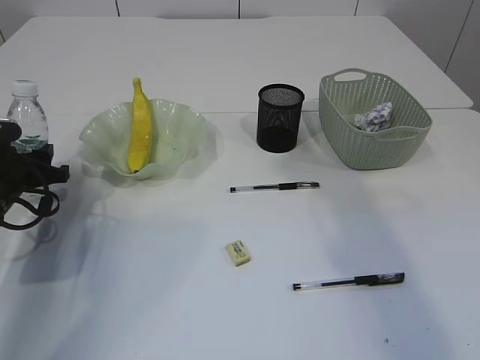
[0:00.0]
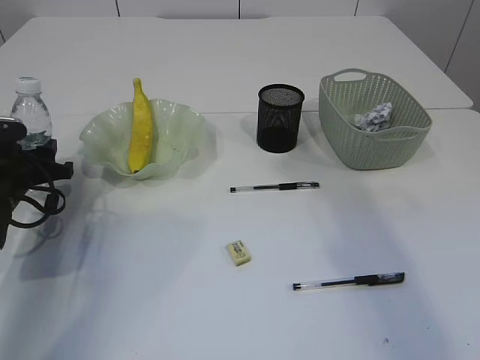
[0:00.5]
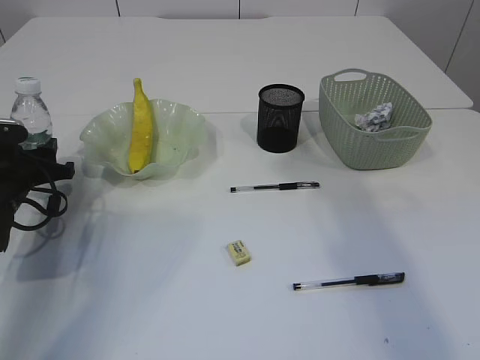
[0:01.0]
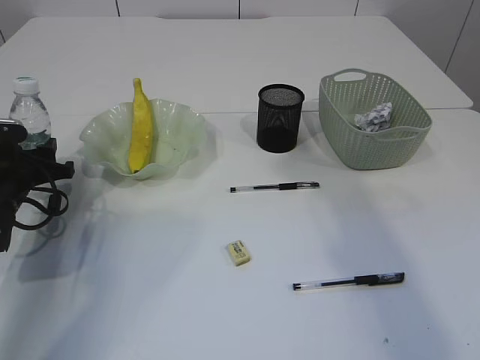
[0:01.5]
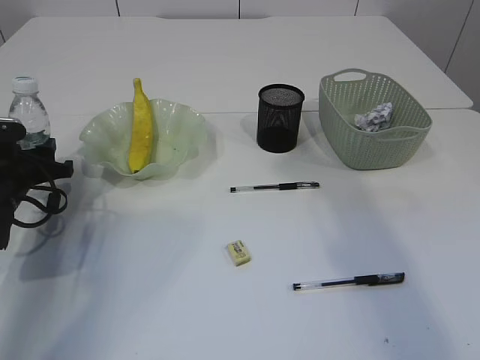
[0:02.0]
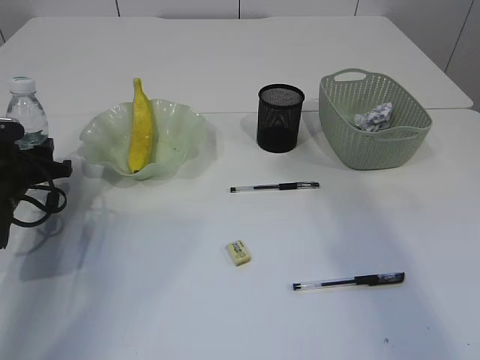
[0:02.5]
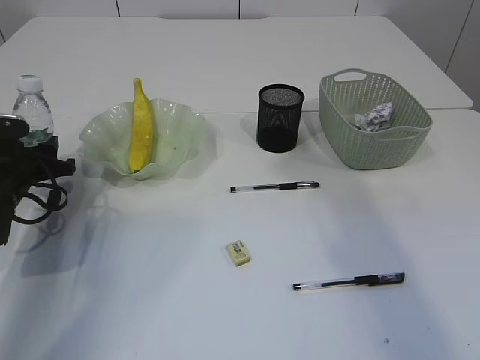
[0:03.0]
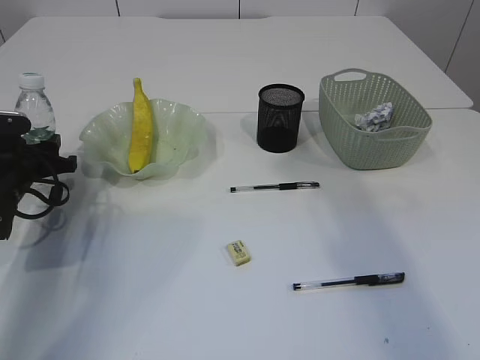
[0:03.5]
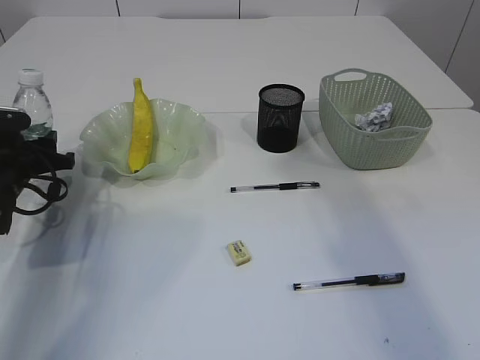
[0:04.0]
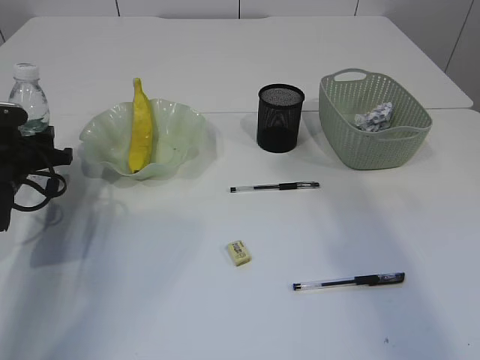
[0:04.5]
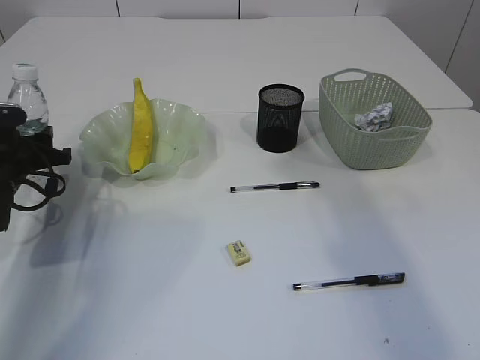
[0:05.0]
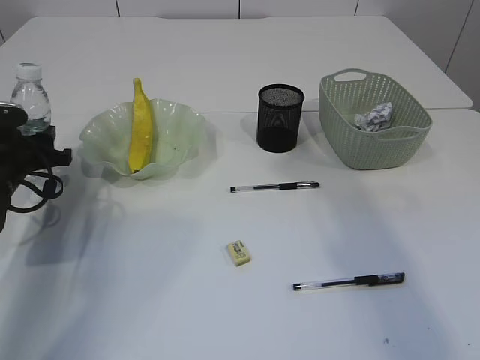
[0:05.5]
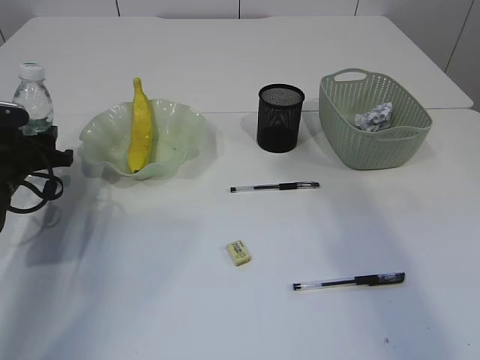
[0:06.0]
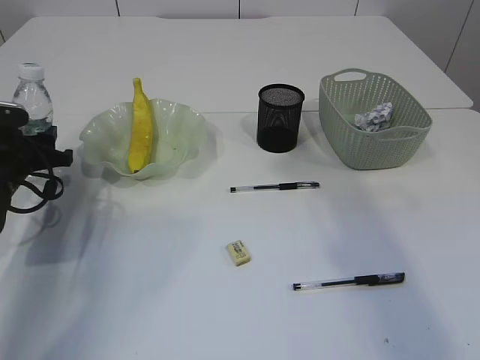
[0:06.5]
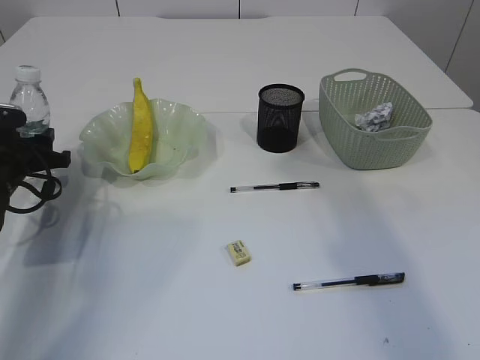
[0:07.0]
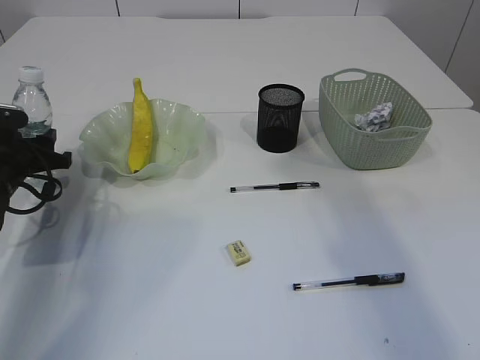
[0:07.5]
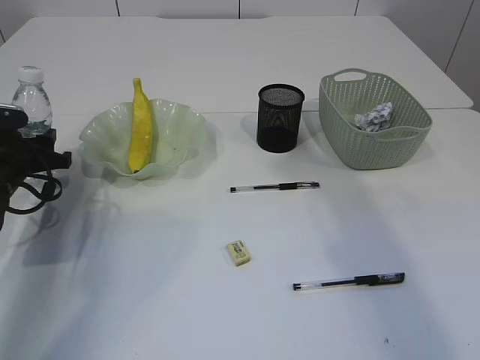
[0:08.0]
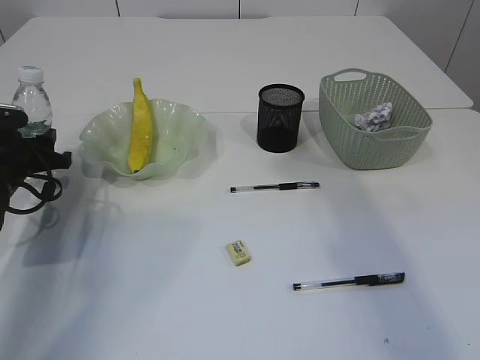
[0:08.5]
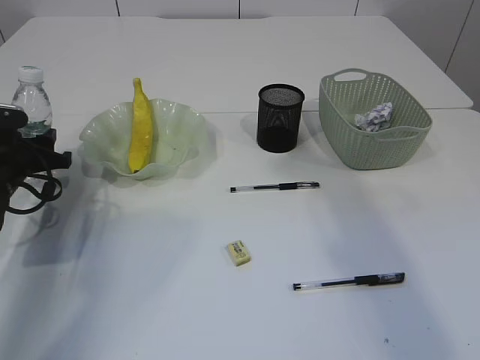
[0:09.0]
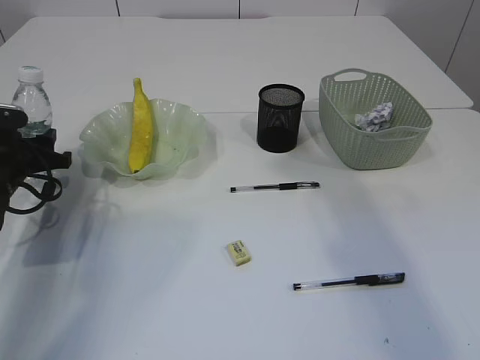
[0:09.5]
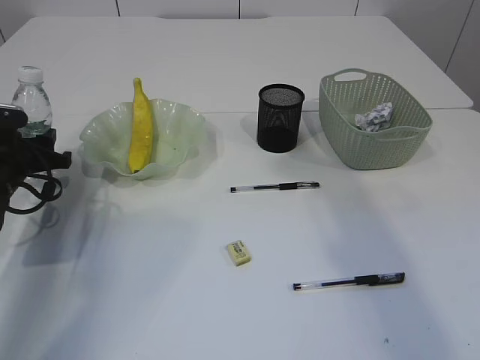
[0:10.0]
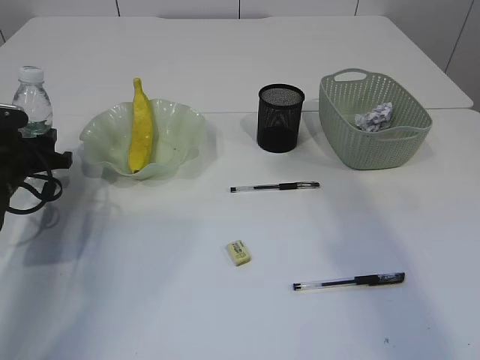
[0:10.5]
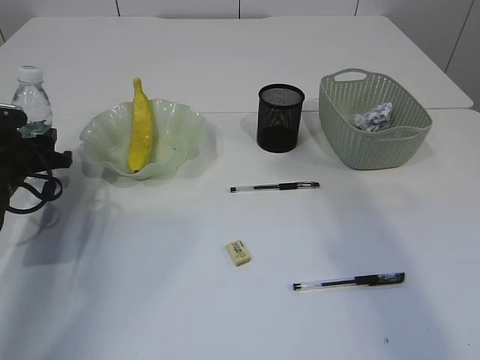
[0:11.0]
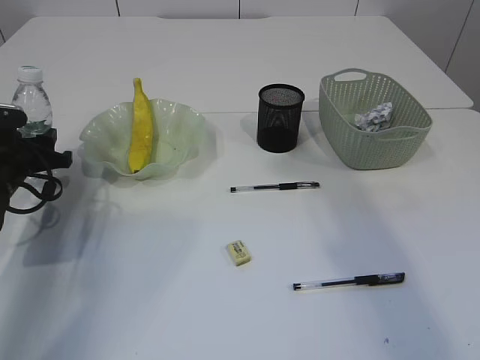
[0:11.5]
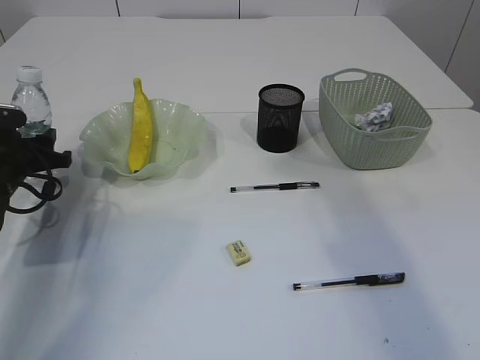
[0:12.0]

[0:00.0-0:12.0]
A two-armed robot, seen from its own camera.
0:00.0 to 0:04.0: There are only small adjustments of the grippers.
0:04.0 to 0:12.0: Neither gripper changes place.

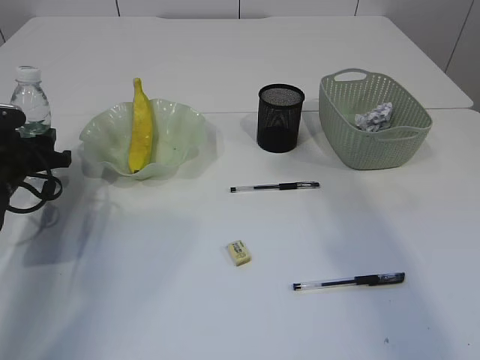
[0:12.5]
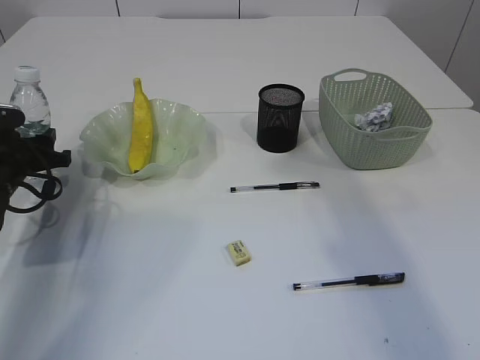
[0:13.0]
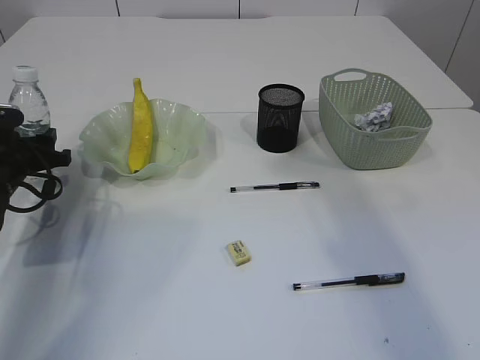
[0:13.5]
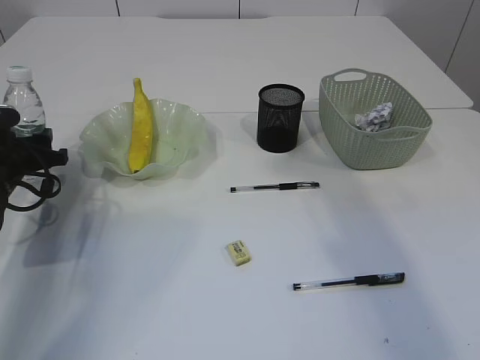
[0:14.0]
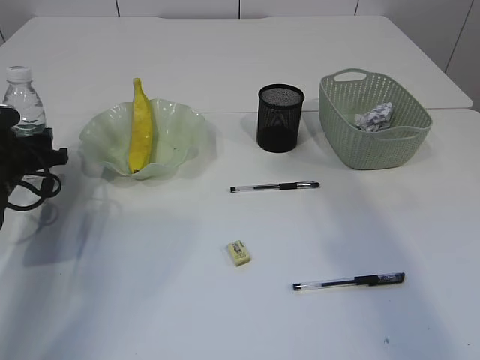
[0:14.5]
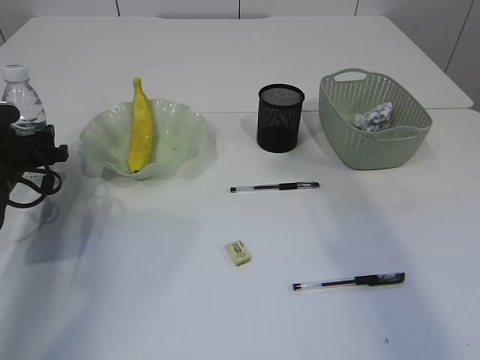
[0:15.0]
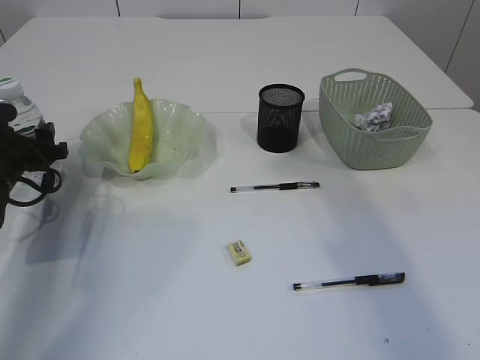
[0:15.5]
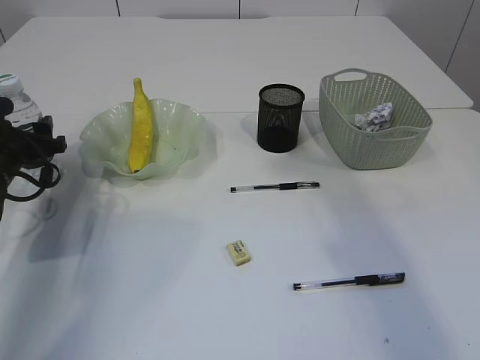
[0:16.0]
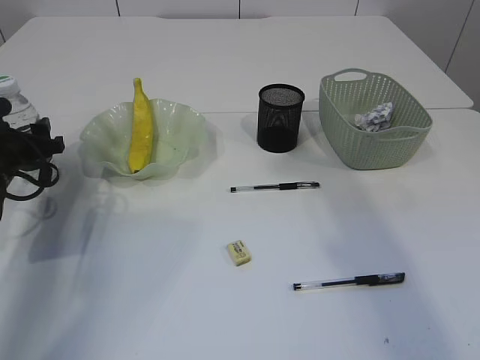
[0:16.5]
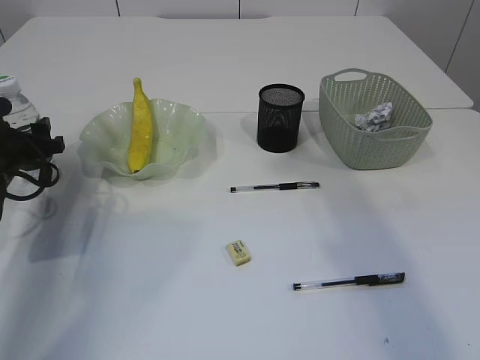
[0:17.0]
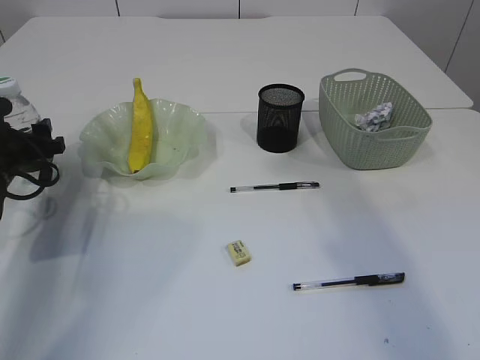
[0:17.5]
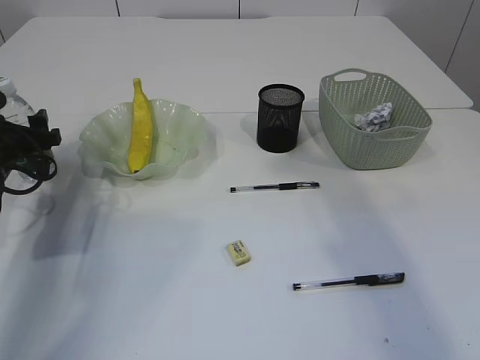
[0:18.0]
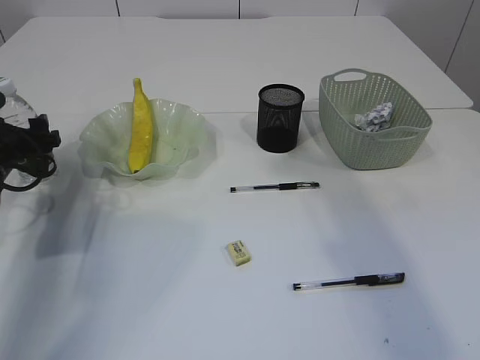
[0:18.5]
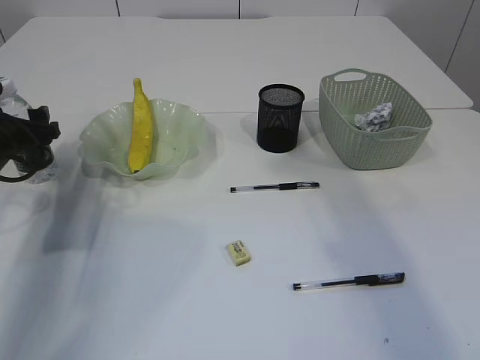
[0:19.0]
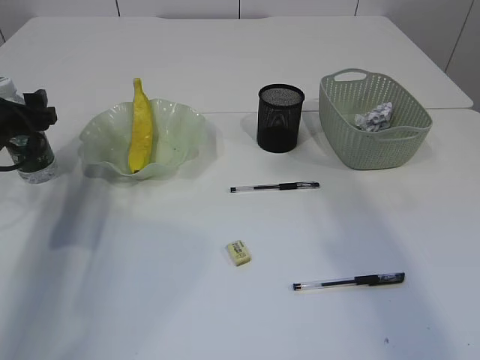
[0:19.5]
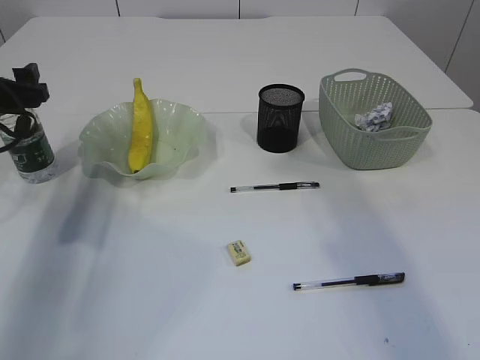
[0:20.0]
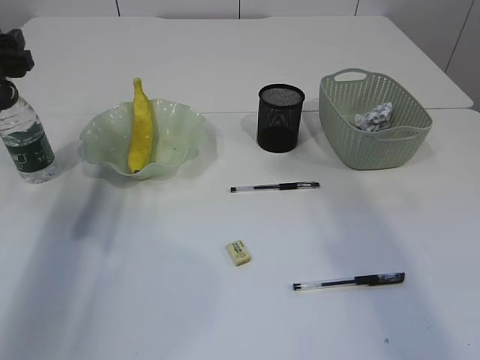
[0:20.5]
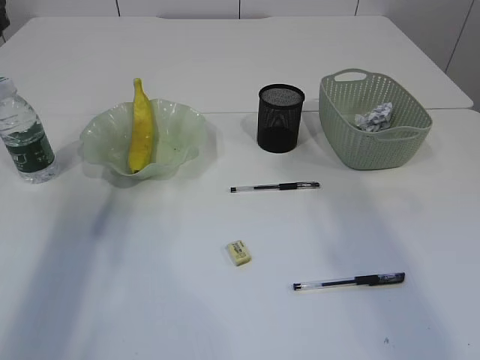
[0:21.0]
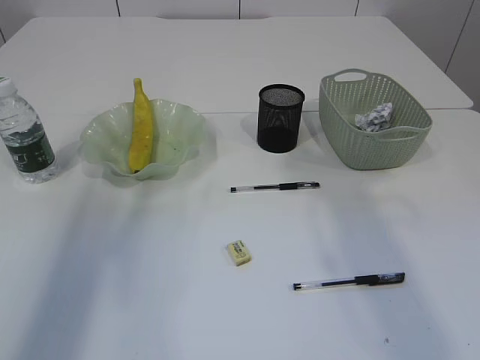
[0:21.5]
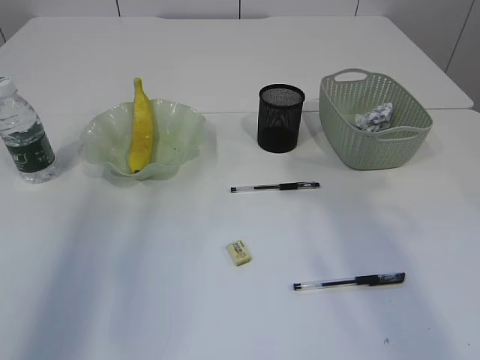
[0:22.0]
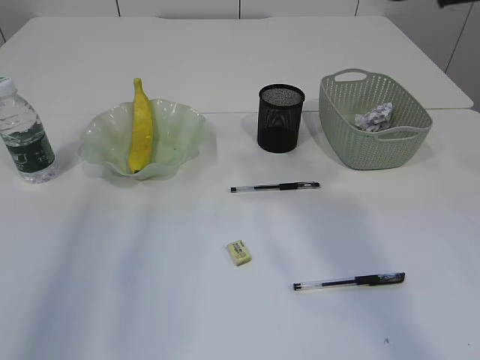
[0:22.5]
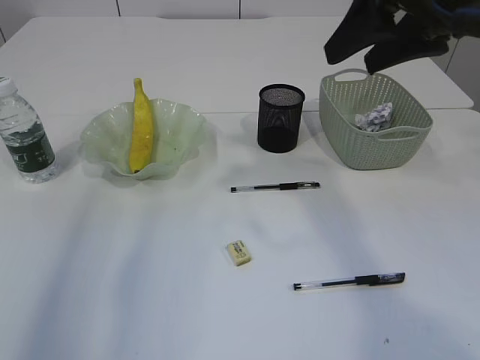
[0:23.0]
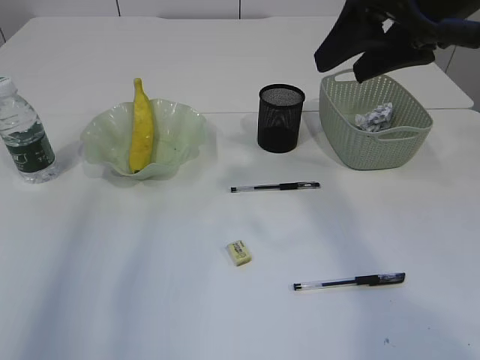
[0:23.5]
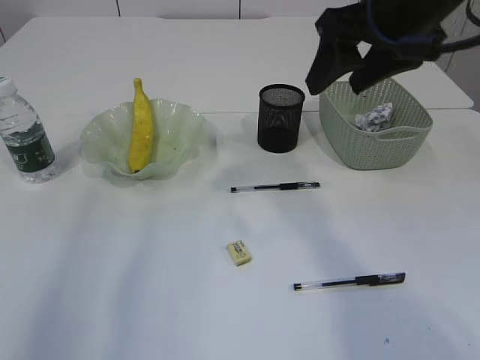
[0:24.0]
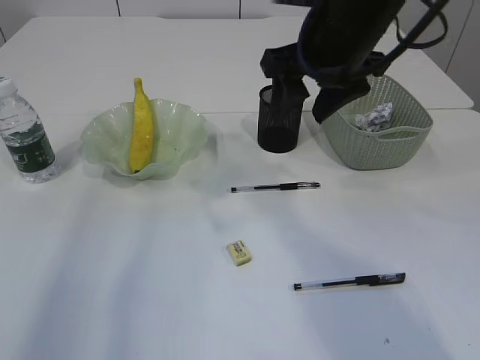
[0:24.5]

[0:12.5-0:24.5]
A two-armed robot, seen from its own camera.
Step, 0:12.5 to 0:20.0: Place the bottle.
0:12.5 to 0:14.5: Both grippers stay put.
0:14.5 to 0:16.5: Both grippers stay put.
0:16.5 to 0:18.5: The two grippers keep their place.
0:18.5 to 0:20.5: The left gripper heads upward, covering roughly 10 cm.
0:20.5 to 0:22.5: The right gripper moves to the left, about 5 cm. The left gripper shifts some 20 cm upward and backward.
0:22.5 to 0:24.5: The right gripper shifts some 15 cm forward, to the left and downward.

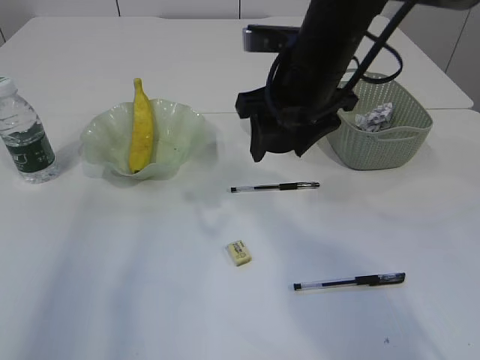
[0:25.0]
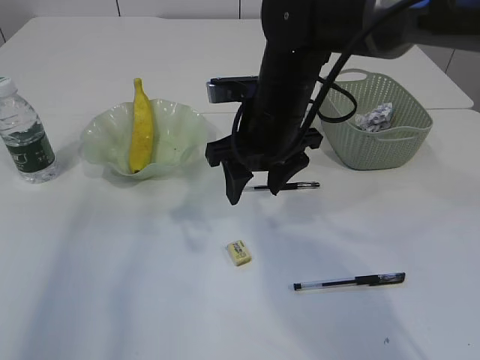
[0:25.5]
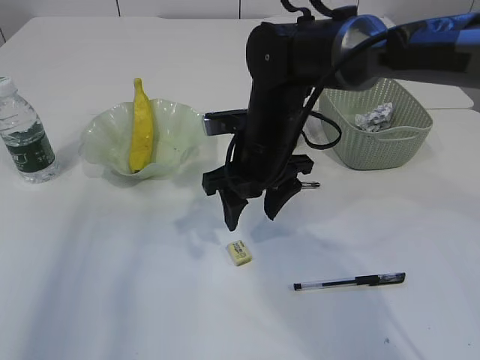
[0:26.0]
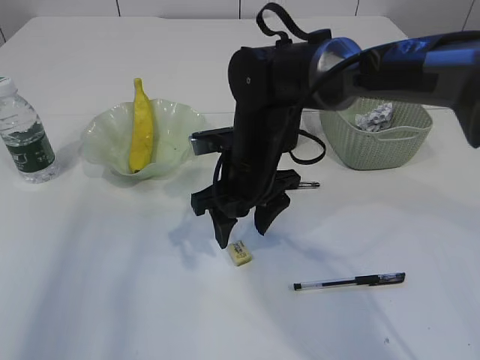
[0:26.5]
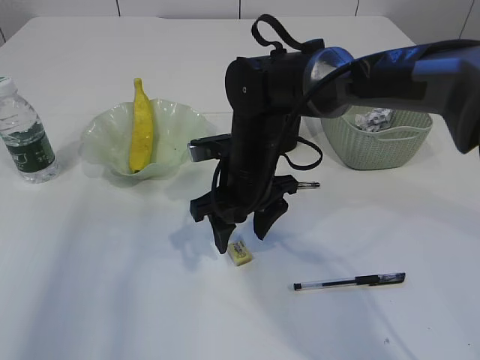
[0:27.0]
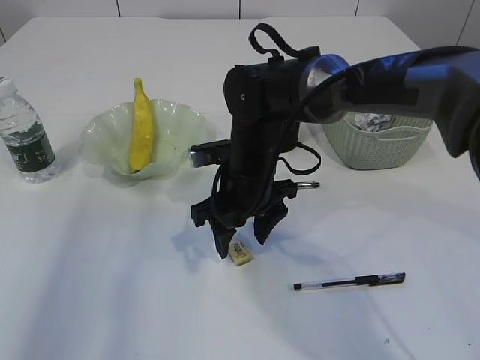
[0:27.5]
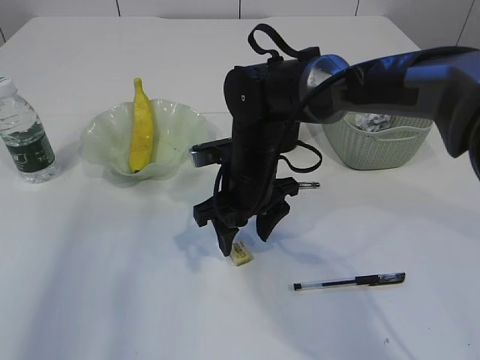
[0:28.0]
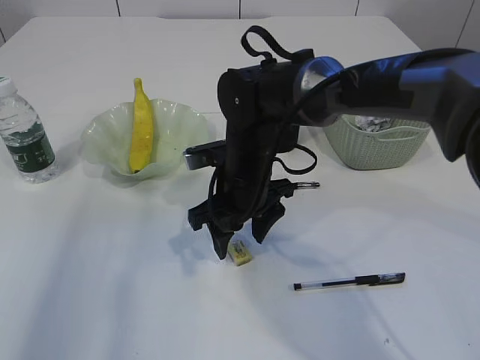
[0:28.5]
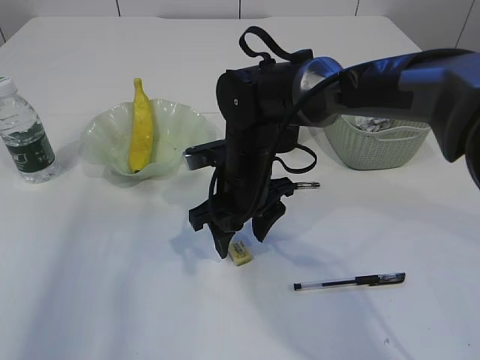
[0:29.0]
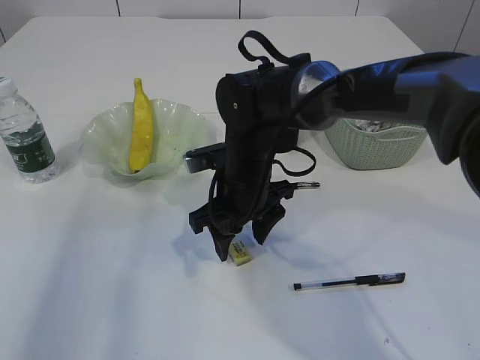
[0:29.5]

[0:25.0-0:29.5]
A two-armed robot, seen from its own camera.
0:25.0 to 0:27.0: The right gripper is displaced downward and to the left by roughly 15 cm.
0:27.0 to 0:29.5: The grippers stay close to where they were, moving slightly.
